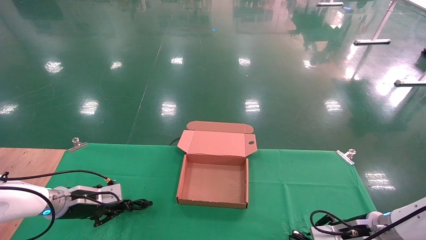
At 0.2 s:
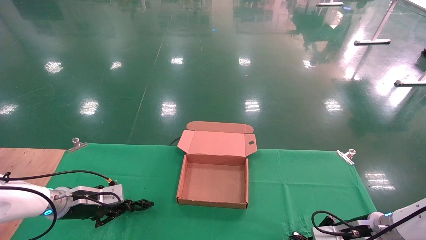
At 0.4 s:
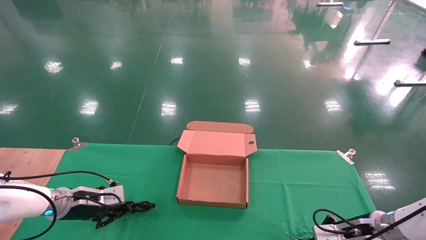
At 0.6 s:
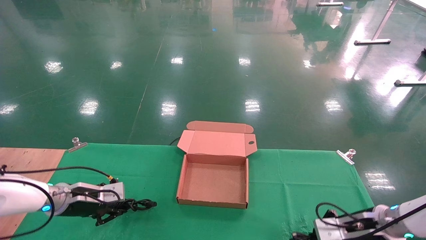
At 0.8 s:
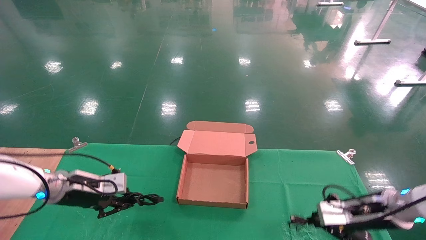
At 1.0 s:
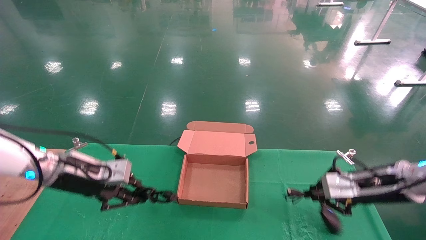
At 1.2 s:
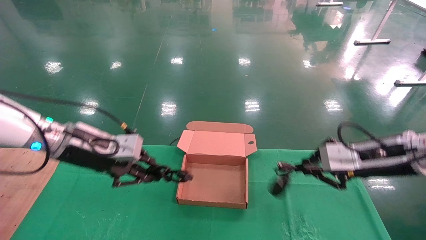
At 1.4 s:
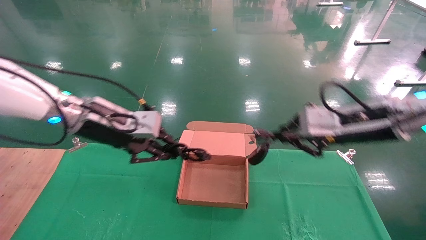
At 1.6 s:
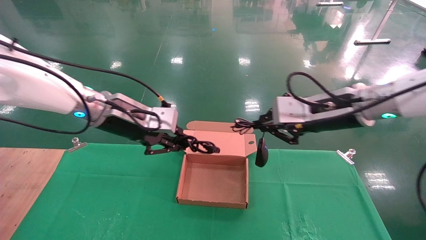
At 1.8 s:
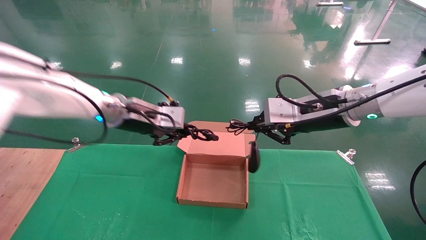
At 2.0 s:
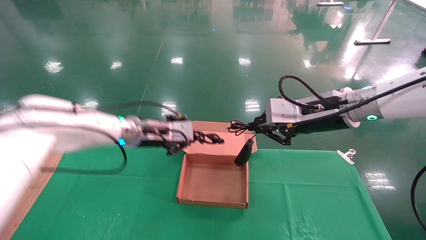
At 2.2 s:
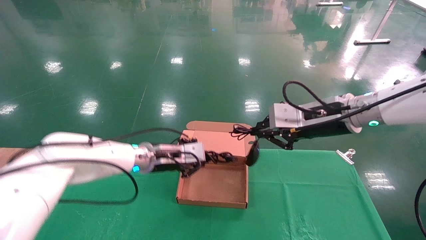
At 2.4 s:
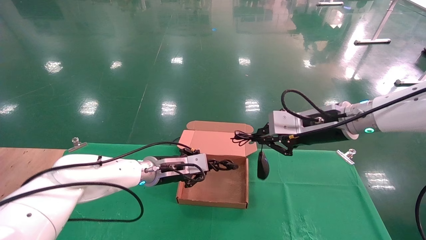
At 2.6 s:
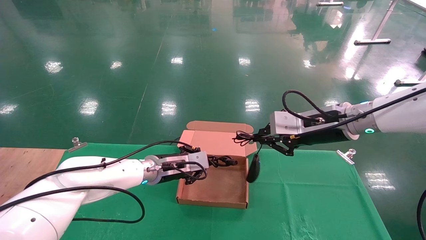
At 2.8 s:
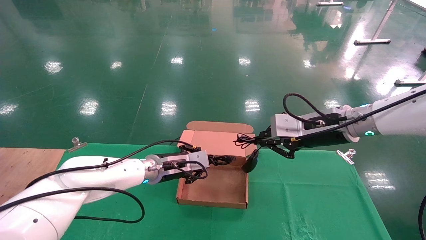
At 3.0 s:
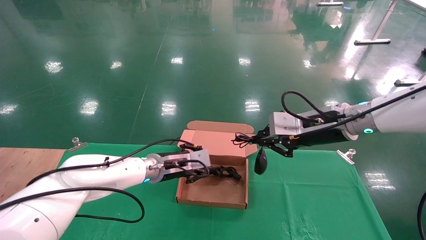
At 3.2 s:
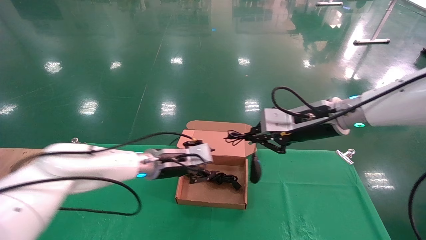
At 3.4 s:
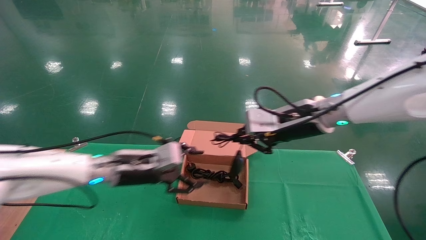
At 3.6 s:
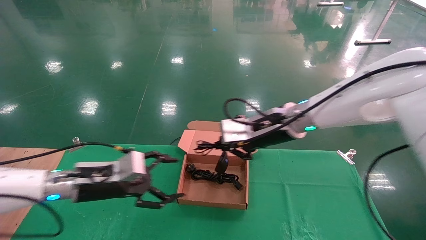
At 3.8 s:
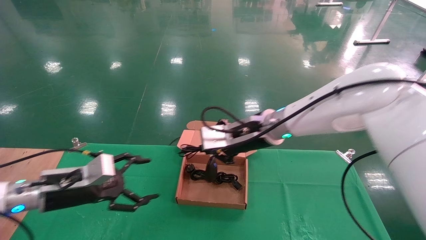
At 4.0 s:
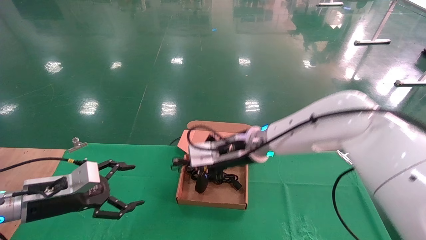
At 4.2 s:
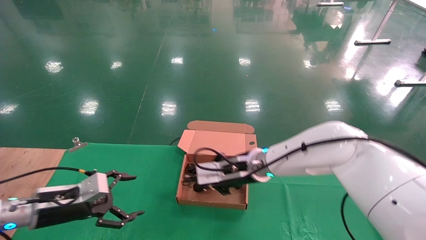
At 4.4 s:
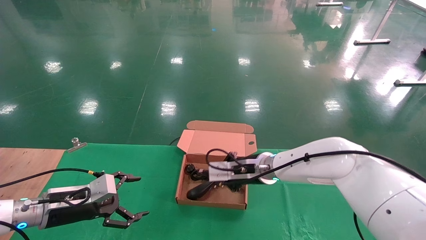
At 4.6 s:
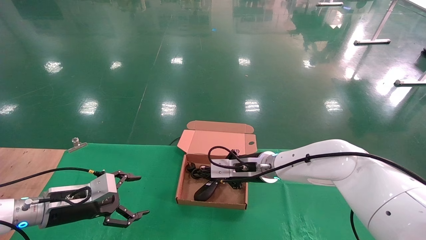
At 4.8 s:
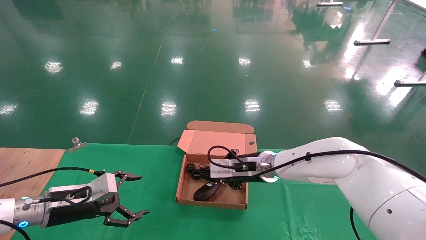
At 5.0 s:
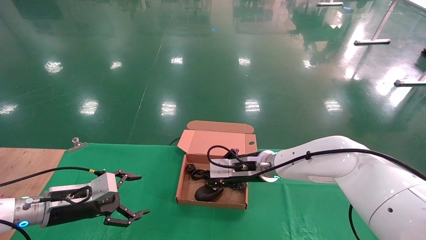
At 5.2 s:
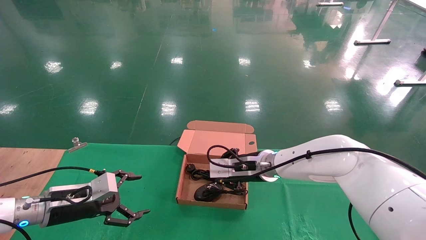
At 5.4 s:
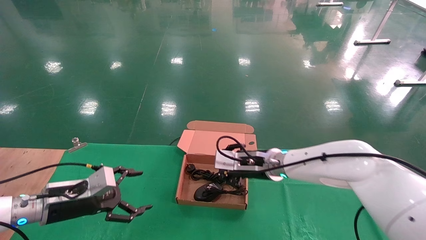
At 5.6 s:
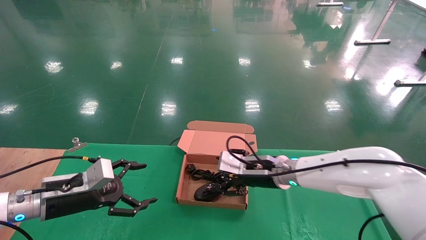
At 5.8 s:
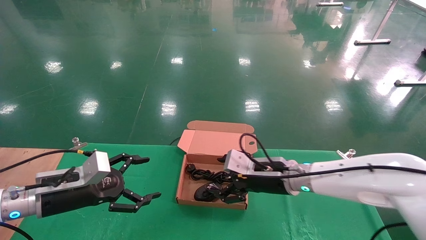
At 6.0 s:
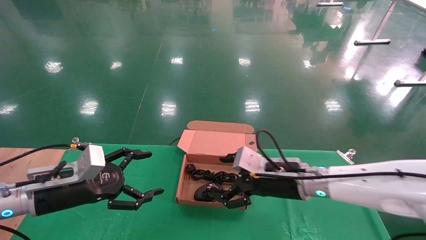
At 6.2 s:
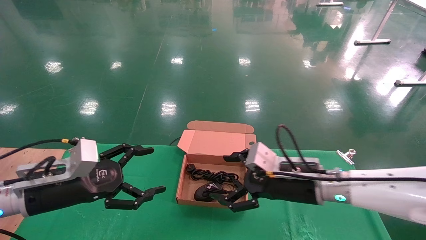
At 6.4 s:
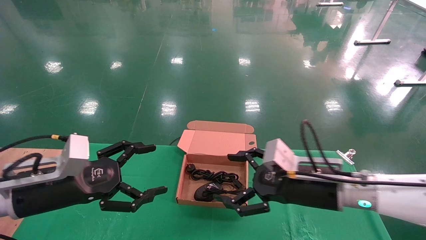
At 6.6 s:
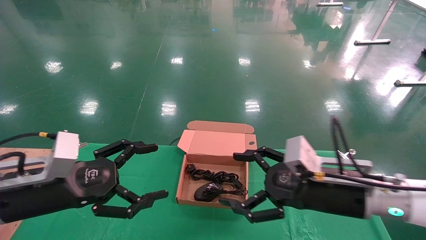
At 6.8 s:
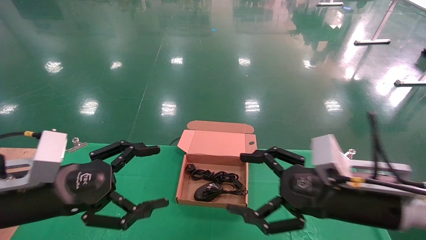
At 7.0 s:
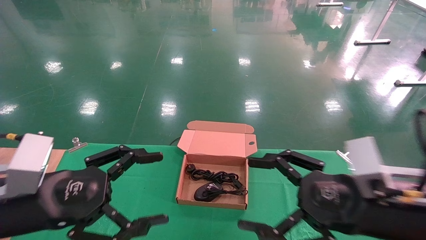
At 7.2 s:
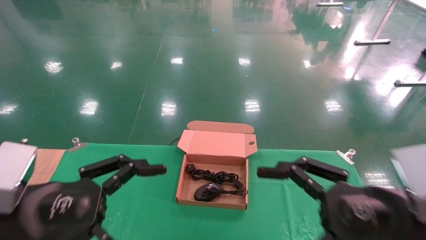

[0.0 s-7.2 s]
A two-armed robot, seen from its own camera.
Step, 1.2 to 5.2 s: Place the mouse and power cord into the box.
0.0 to 1.4 s: The right gripper moves upward, about 25 cm, and closes. Meanwhile the left gripper moves upward and to the right, roughly 25 cm.
1.4 to 2.8 s: The left gripper is displaced downward, to the right and forward by approximately 20 cm, while the right gripper changes place by approximately 5 cm.
2.8 to 4.4 s: The right gripper goes about 20 cm to the left and downward, while the left gripper travels to the left and backward by about 25 cm, and opens.
4.4 to 5.8 s: The right gripper is displaced backward by some 5 cm, and opens. The left gripper ends up some 5 cm from where it was.
5.8 to 7.2 s: The right gripper is displaced backward and to the right by some 25 cm, while the left gripper moves backward and upward, about 15 cm.

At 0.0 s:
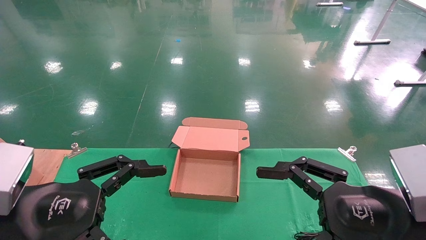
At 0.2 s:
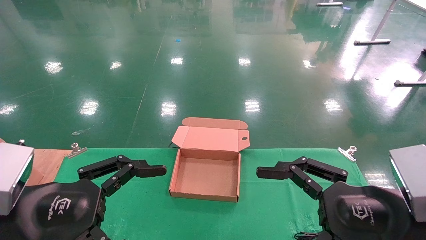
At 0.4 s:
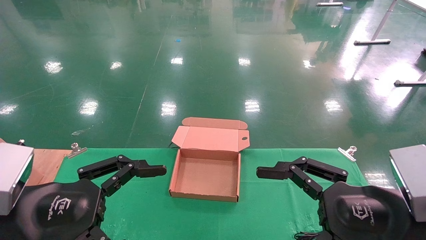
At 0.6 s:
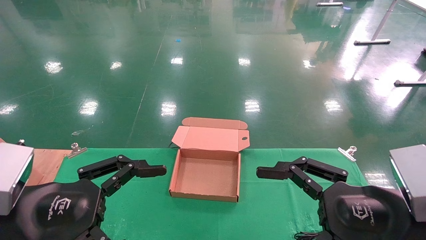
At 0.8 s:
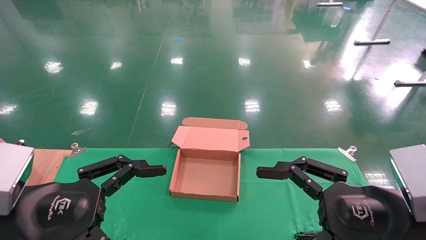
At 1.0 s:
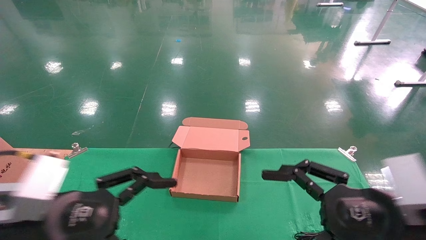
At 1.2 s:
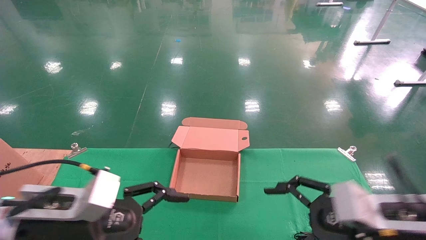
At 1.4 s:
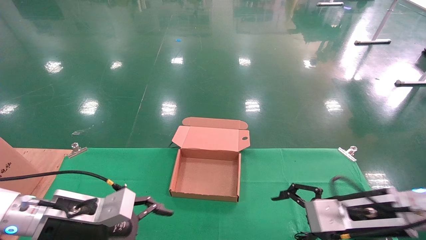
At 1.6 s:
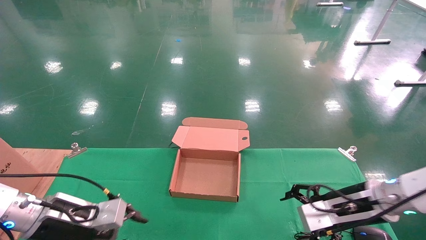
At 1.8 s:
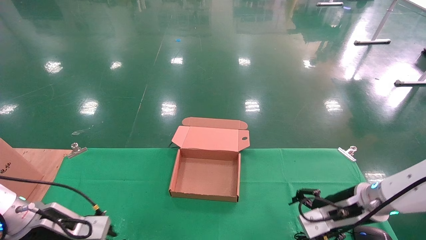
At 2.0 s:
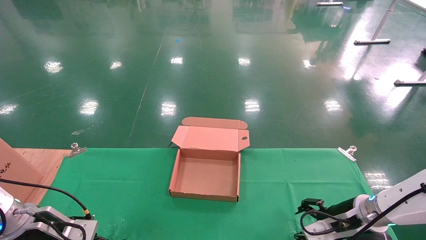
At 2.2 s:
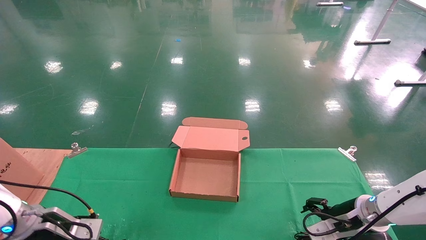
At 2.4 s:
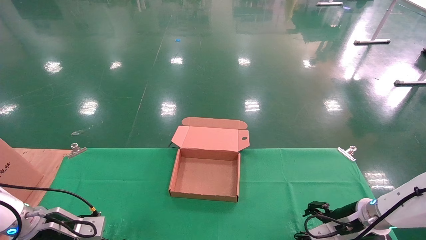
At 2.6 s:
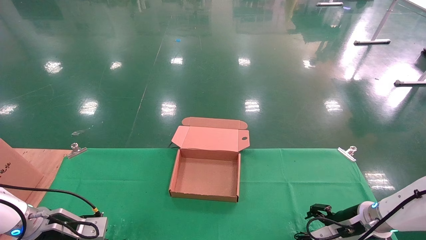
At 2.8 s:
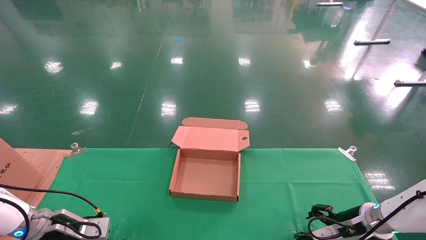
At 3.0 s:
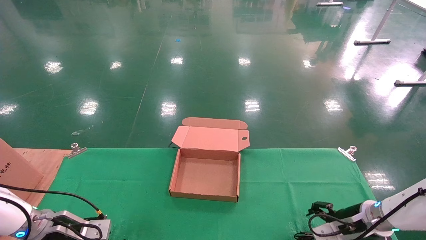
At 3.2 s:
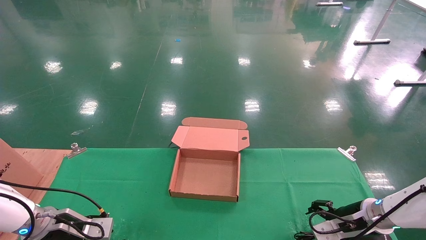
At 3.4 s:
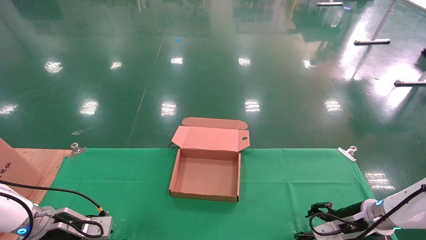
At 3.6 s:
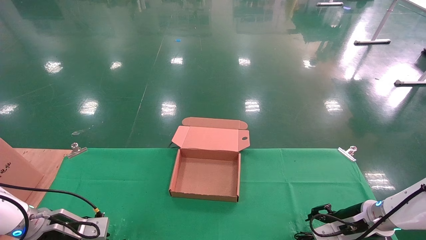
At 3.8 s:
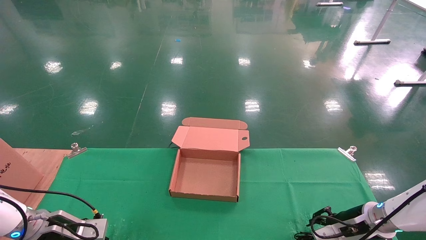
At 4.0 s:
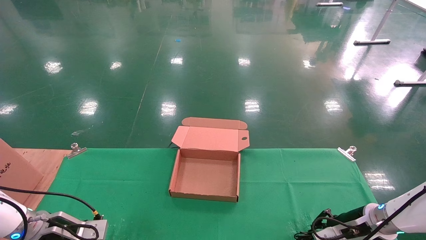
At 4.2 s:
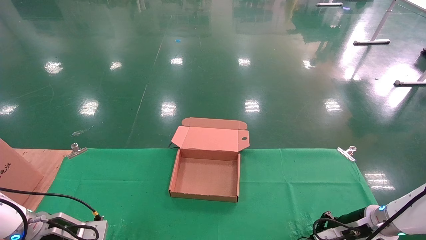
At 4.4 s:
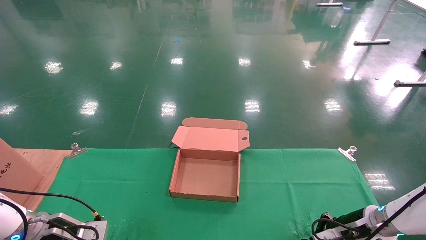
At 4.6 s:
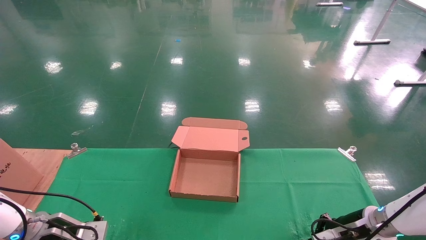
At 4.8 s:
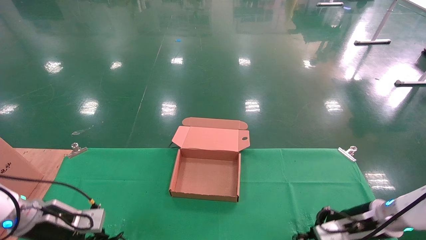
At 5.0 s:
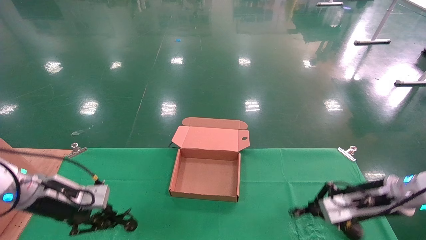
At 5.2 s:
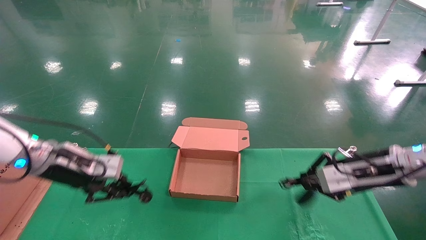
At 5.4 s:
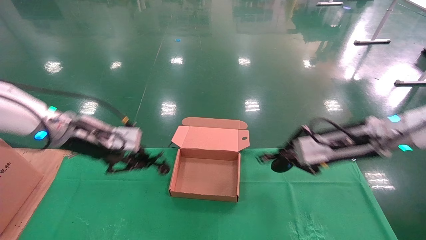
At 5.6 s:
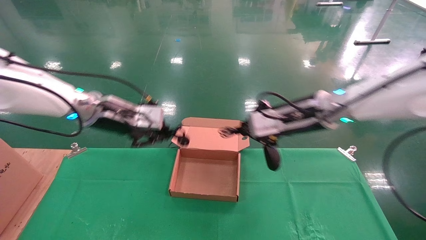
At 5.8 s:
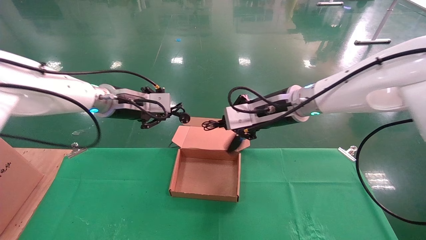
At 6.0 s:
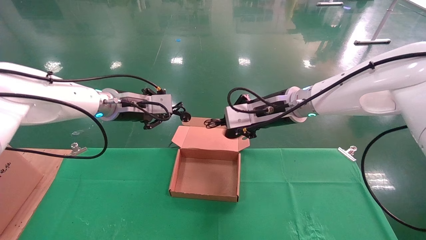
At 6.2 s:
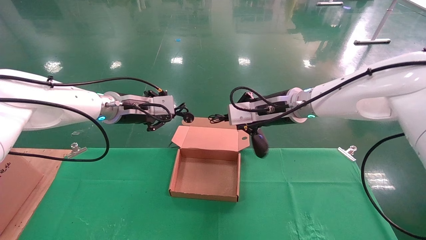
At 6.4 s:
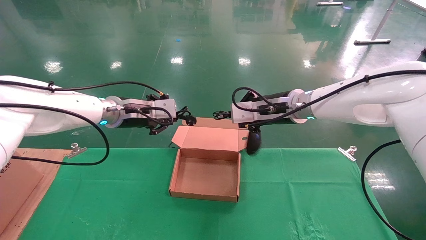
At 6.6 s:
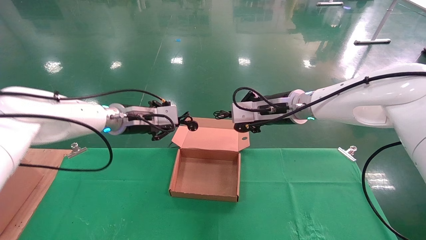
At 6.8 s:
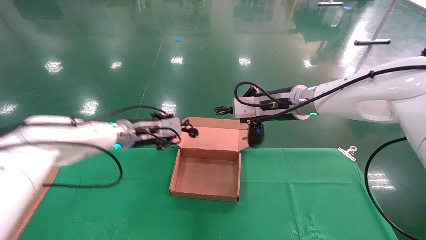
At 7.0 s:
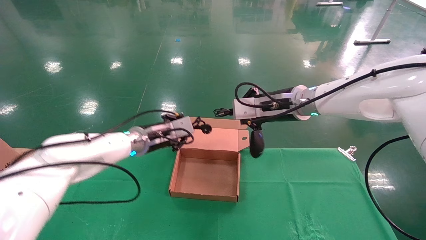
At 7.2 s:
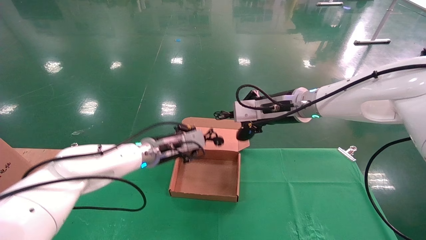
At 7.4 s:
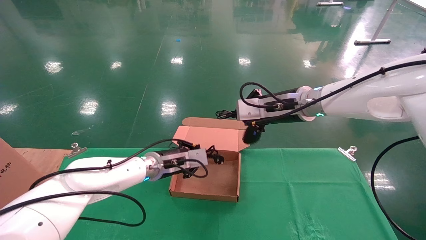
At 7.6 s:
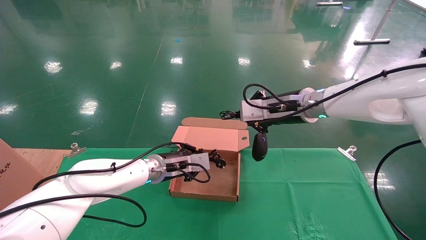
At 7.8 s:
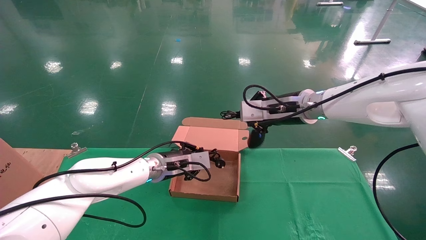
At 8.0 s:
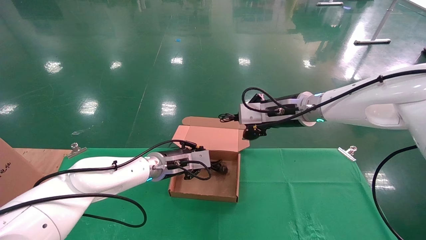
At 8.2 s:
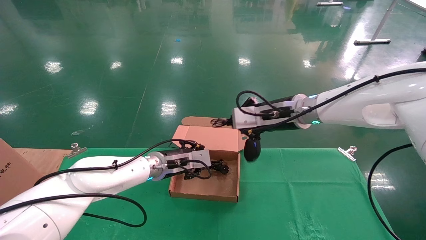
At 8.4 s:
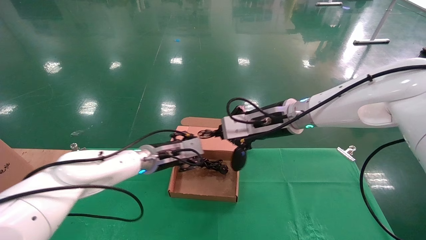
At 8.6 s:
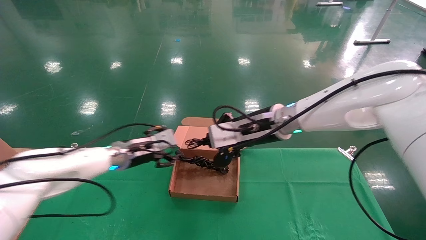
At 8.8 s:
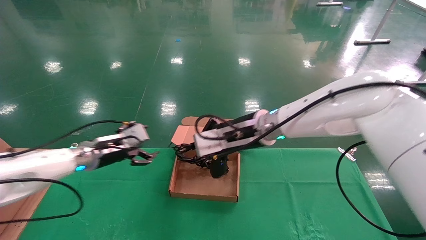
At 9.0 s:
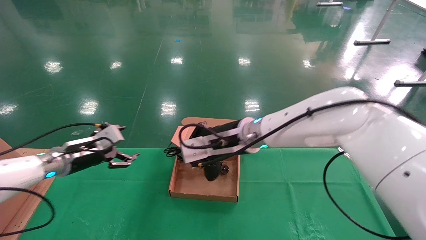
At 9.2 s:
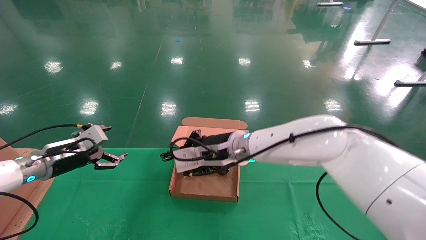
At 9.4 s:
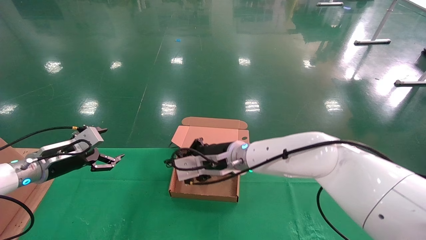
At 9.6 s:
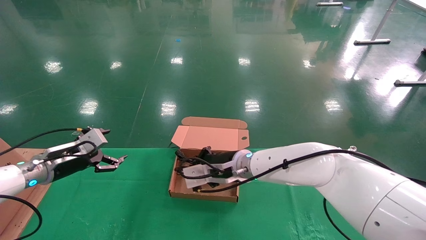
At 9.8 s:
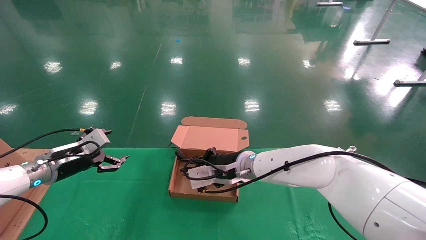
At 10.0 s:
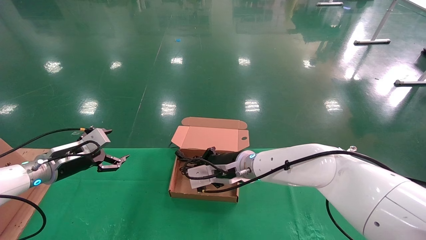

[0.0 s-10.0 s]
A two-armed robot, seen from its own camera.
Step, 2.0 to 5.4 s: Grab and lift both the mouse and power cord from the accessory packaging area at the same time.
0.0 to 1.4 s: The two grippers go about 15 cm forward and downward.
1.4 to 2.8 s: The right gripper travels downward, forward and to the right by approximately 15 cm; the left gripper travels to the left, downward and forward by approximately 15 cm.
2.8 to 4.2 s: The right gripper closes up; the left gripper closes its fingers.
4.2 to 5.8 s: The right gripper travels upward and to the left by roughly 30 cm. The left gripper shifts about 30 cm upward and to the right.
5.8 to 7.2 s: The left gripper travels downward and to the right by about 15 cm.
7.2 to 8.6 s: Both grippers move to the left, roughly 5 cm. The left gripper opens.
8.6 to 10.0 s: The left gripper shifts some 15 cm to the left, and opens. The right gripper is displaced downward and to the left by roughly 15 cm.
